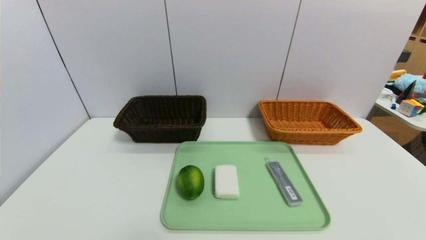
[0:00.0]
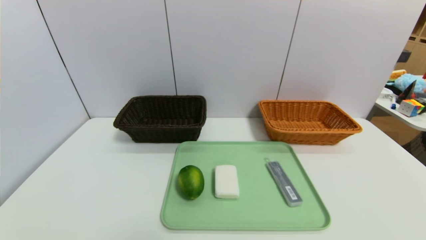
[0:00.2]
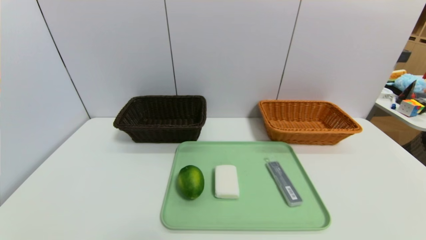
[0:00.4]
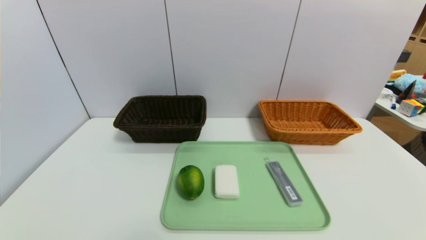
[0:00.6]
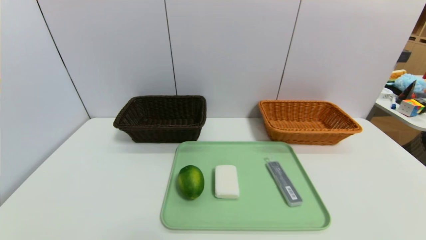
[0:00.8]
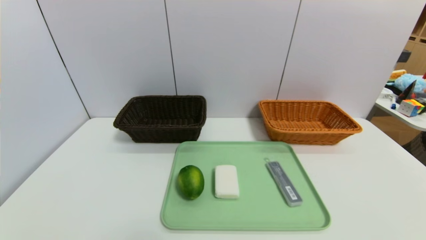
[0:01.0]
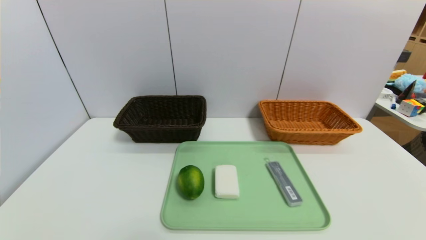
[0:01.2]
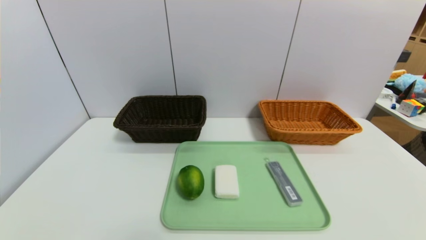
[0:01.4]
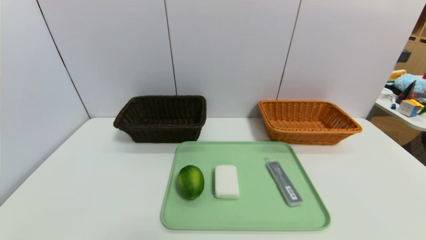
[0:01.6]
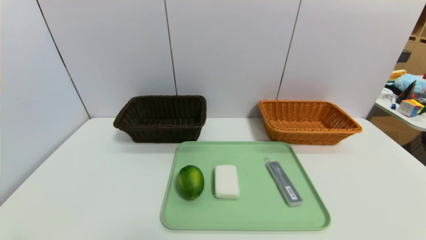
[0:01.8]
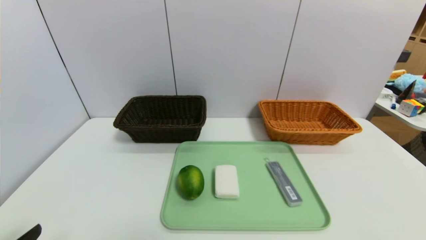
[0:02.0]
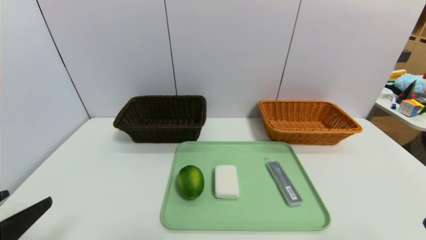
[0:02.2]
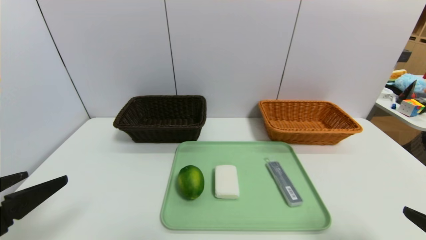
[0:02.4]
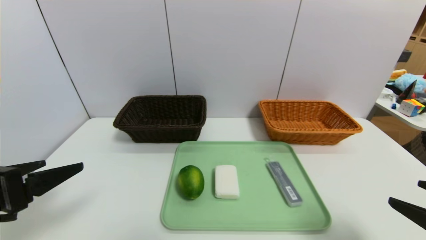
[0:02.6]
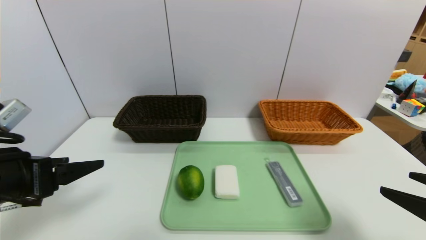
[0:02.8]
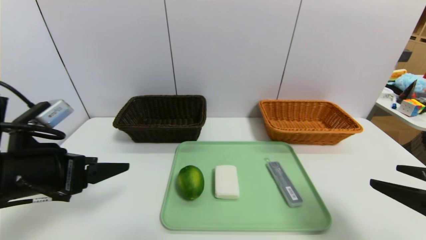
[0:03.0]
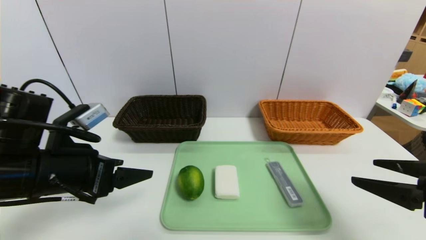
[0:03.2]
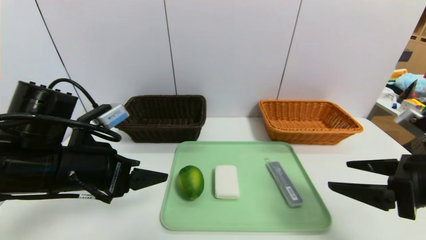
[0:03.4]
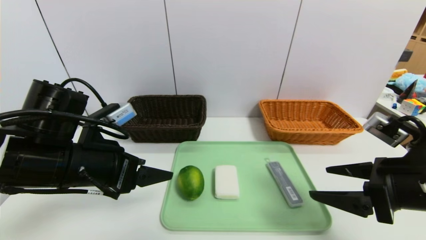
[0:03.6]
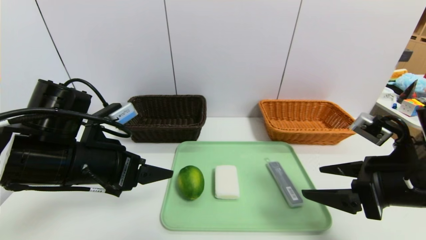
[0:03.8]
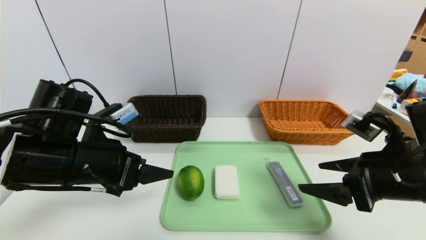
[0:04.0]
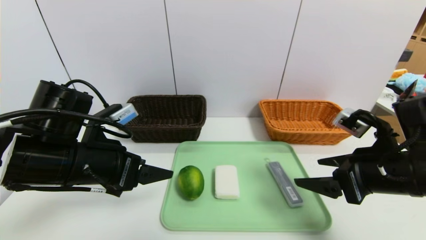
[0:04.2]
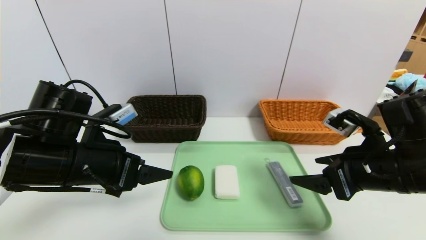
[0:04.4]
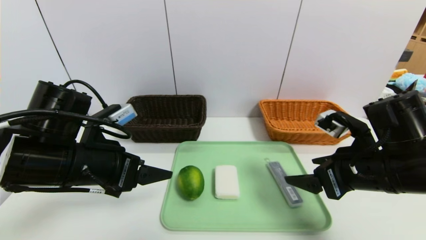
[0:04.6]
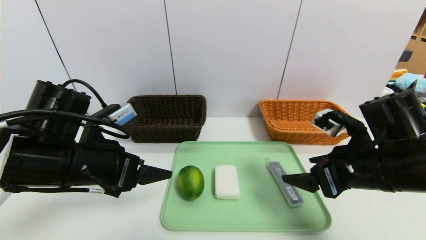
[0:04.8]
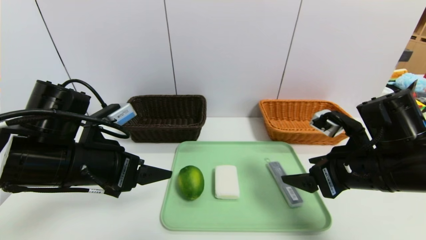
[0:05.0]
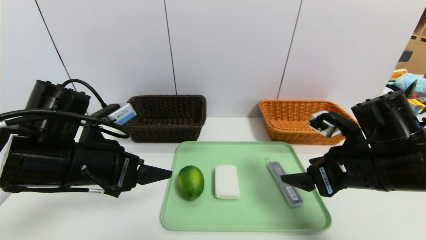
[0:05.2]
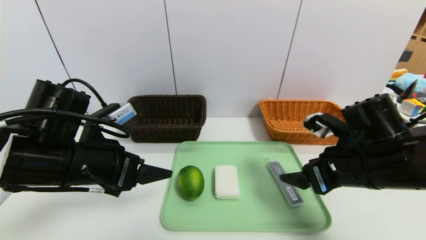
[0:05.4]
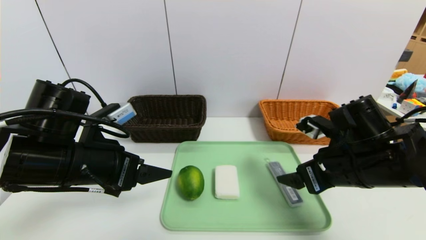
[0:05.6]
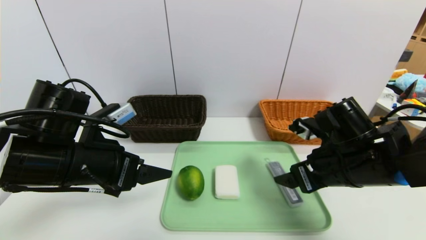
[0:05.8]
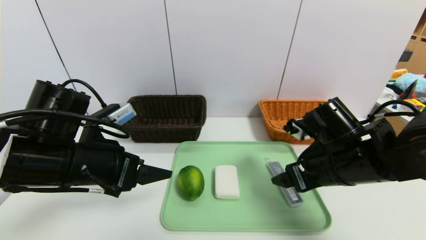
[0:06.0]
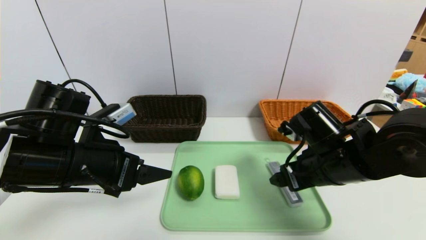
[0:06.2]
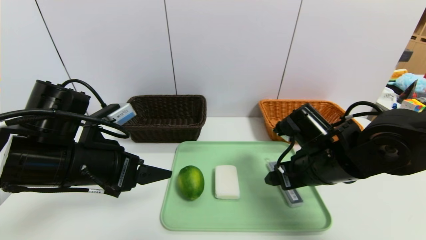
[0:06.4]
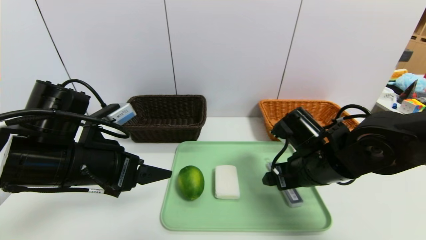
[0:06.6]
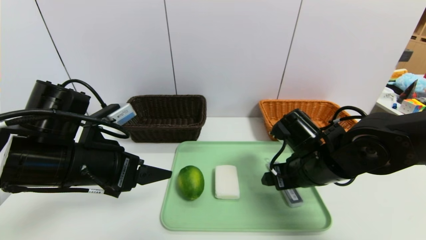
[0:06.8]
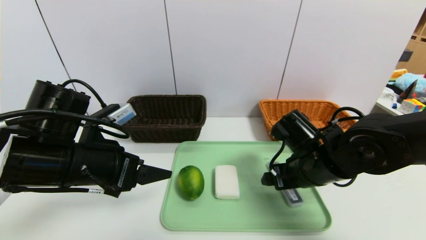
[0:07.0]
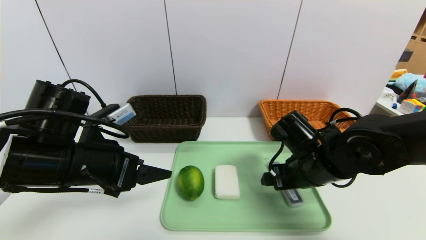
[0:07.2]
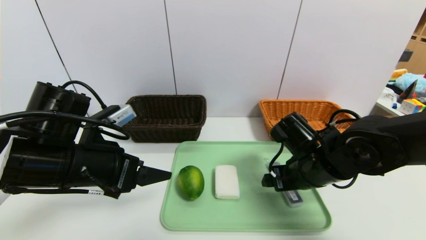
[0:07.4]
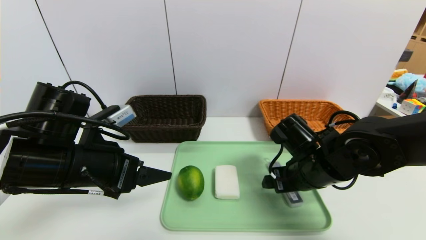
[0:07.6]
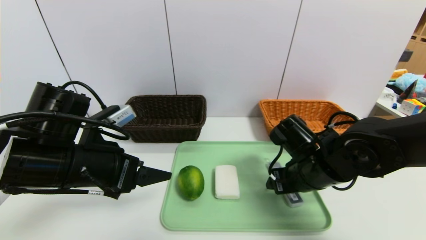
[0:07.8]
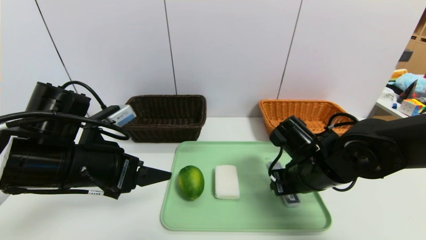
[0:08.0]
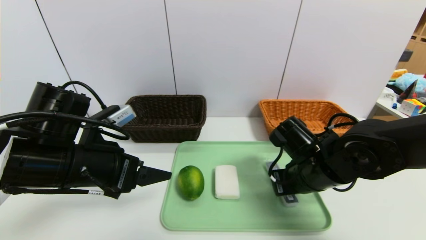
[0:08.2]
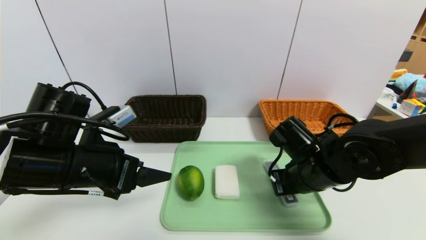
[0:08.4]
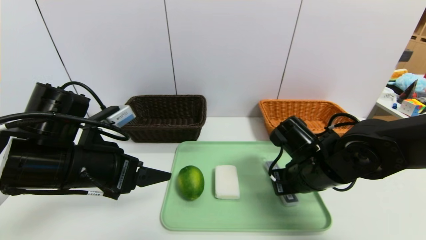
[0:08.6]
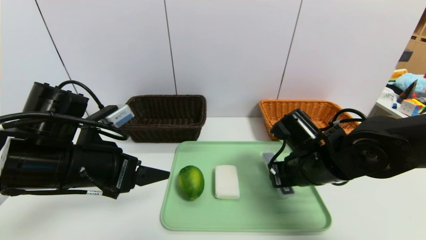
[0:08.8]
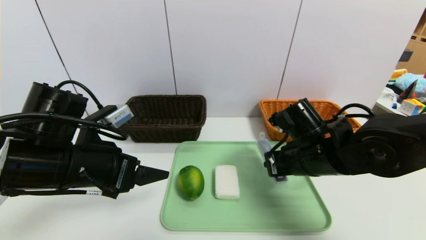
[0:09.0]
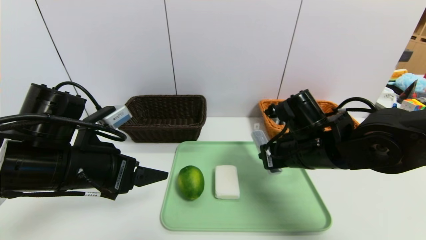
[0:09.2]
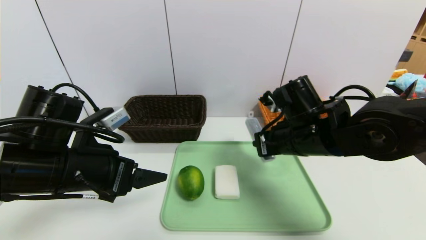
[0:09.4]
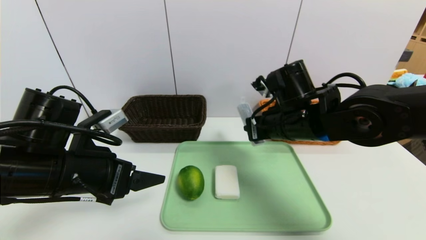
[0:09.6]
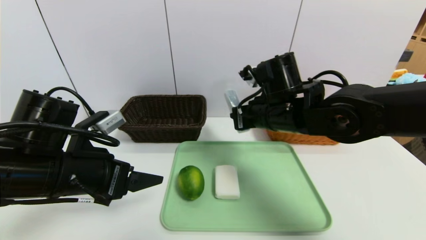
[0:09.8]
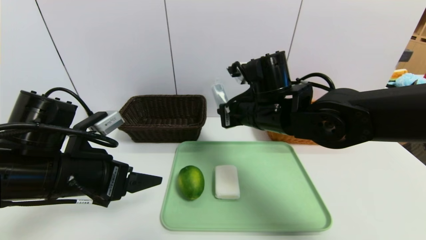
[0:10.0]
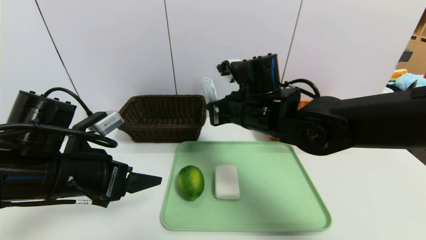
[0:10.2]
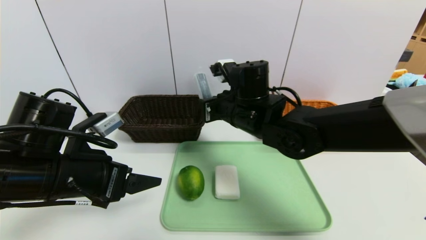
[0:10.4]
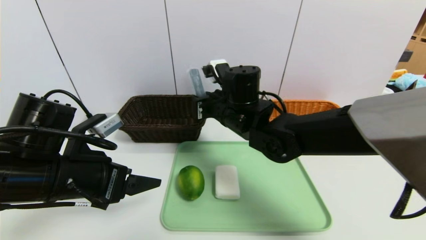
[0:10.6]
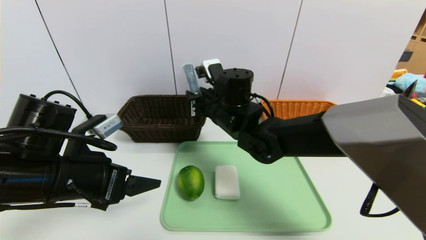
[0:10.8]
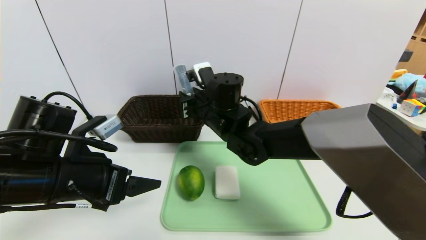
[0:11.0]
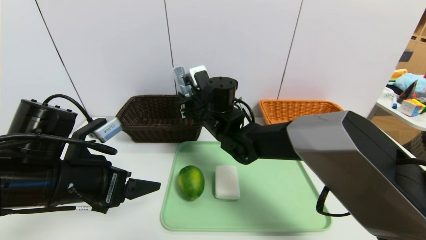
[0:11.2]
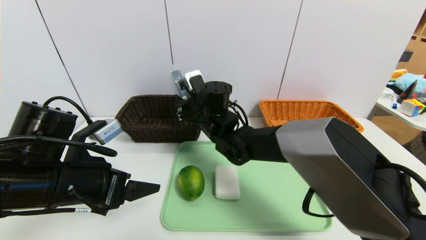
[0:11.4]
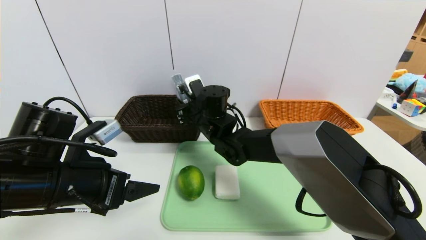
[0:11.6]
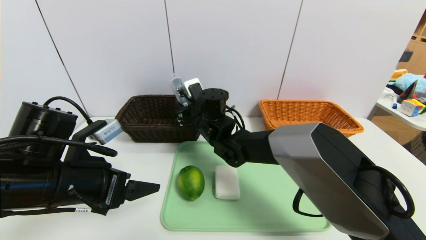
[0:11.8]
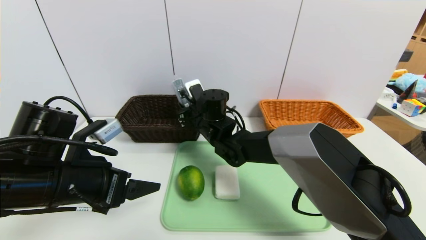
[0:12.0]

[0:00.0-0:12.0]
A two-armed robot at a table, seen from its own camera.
Task of the whole recording: place the food in the right basket with the right gripper, and place the non food items in the left basket with the left gripper.
0:01.6 to 0:03.0: The two grippers go roughly 20 cm forward and upward.
0:03.0 to 0:04.4: The right gripper shifts approximately 10 cm forward and to the left. Meanwhile the left gripper travels to the right by some 5 cm.
0:04.4 to 0:06.0: The right gripper changes place by about 5 cm.
0:06.0 to 0:07.6: The grippers move only a little.
0:07.6 to 0:09.0: The right gripper closes its fingers.
0:09.0 to 0:10.4: The right gripper goes about 15 cm to the left, forward and upward.
0:10.4 to 0:12.0: The right gripper heads to the left, forward and downward, covering about 10 cm.

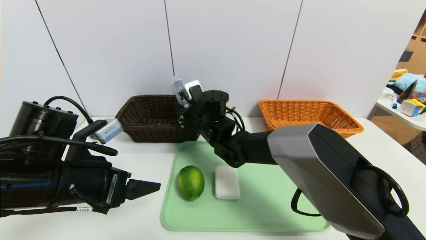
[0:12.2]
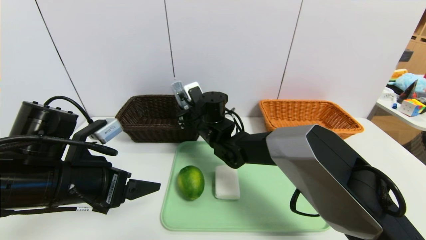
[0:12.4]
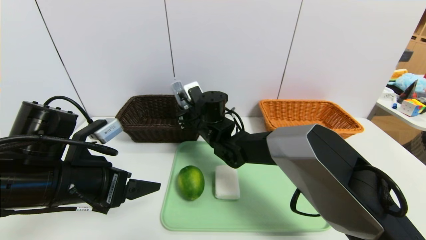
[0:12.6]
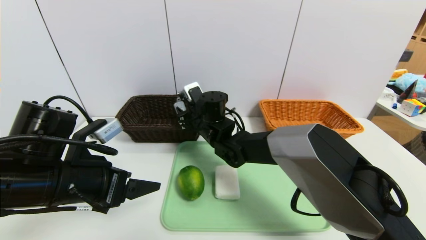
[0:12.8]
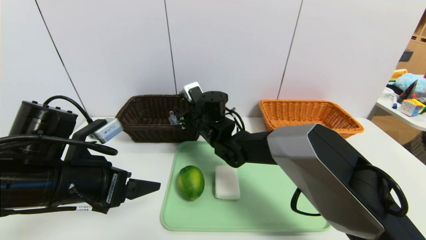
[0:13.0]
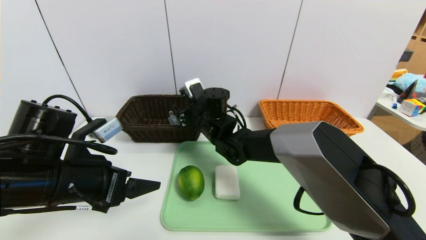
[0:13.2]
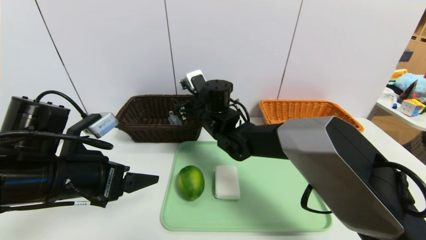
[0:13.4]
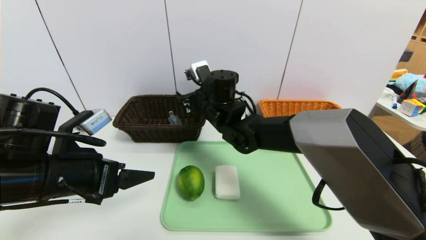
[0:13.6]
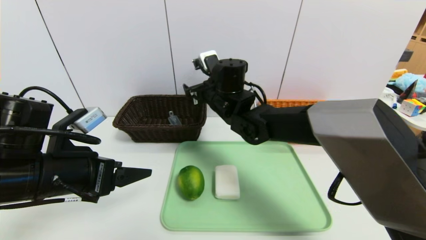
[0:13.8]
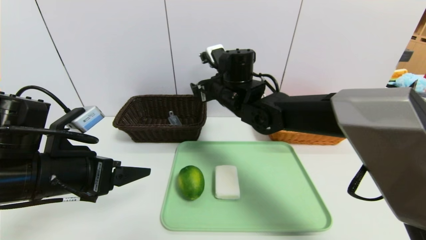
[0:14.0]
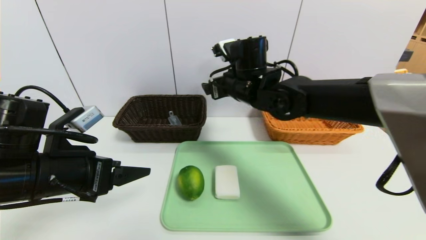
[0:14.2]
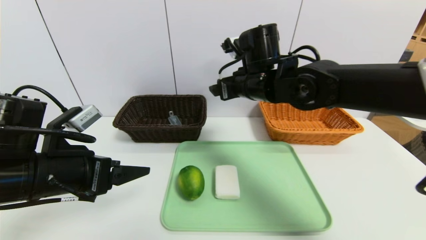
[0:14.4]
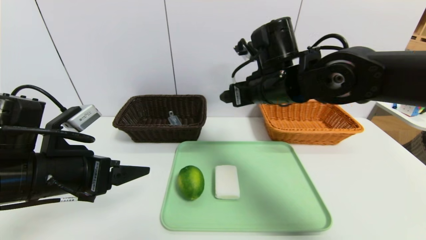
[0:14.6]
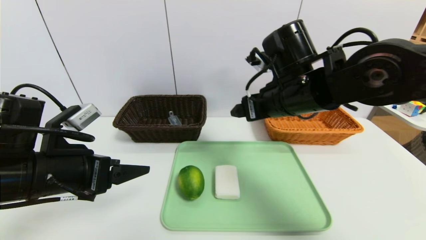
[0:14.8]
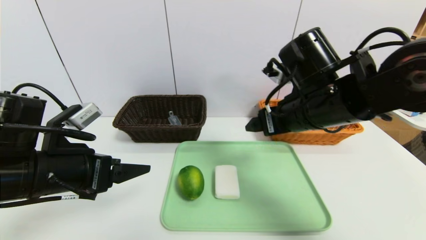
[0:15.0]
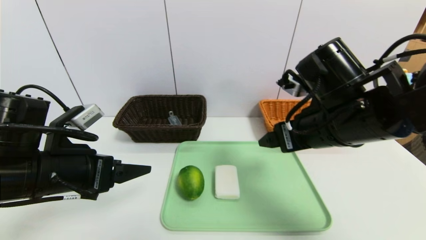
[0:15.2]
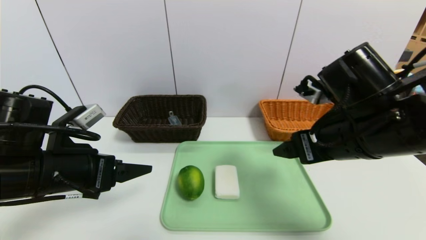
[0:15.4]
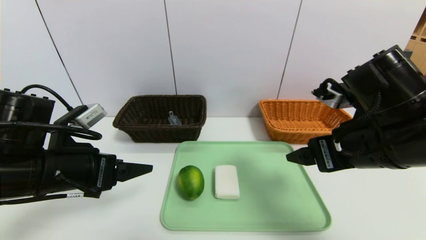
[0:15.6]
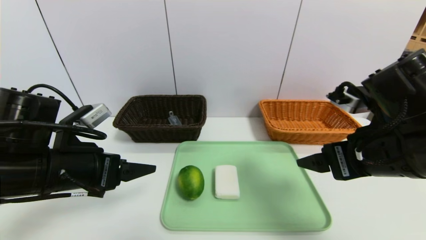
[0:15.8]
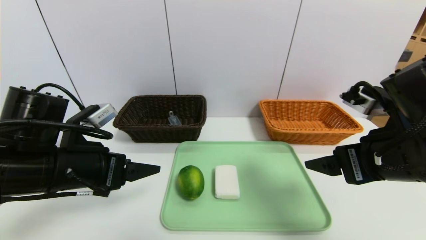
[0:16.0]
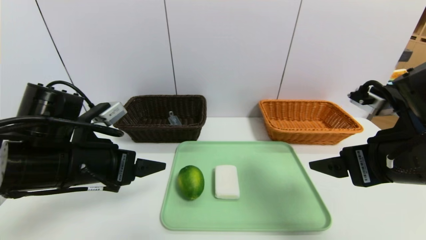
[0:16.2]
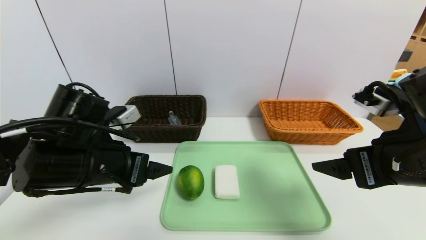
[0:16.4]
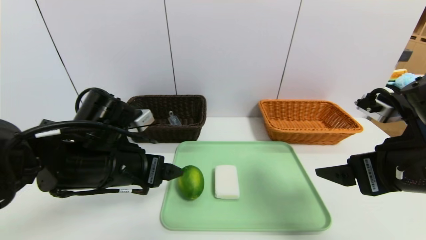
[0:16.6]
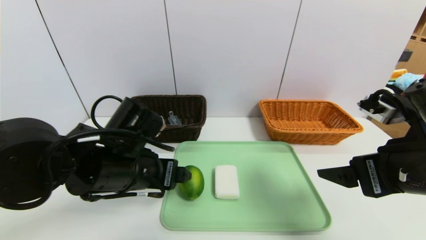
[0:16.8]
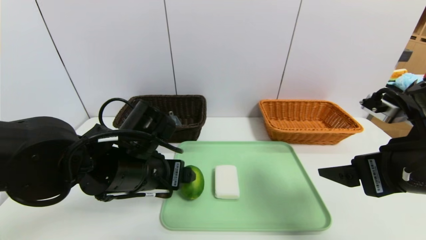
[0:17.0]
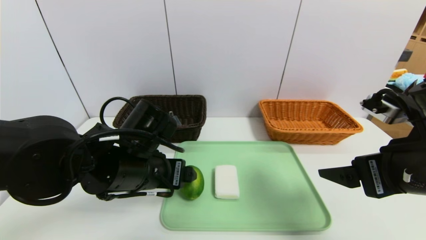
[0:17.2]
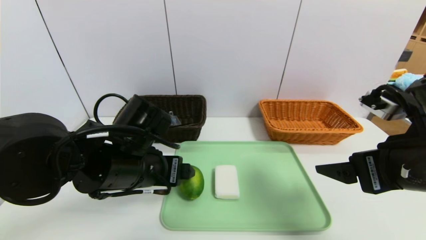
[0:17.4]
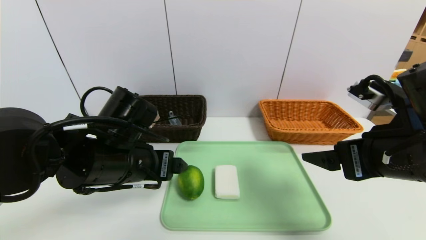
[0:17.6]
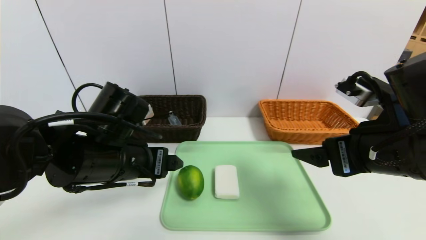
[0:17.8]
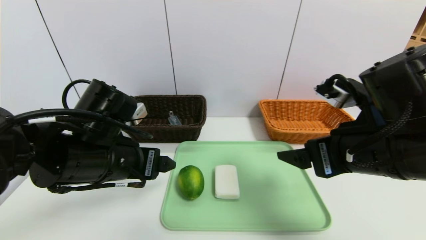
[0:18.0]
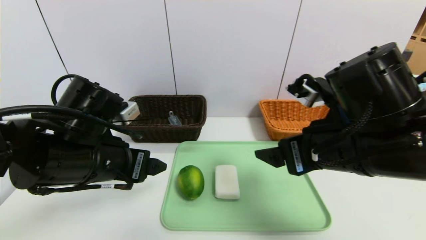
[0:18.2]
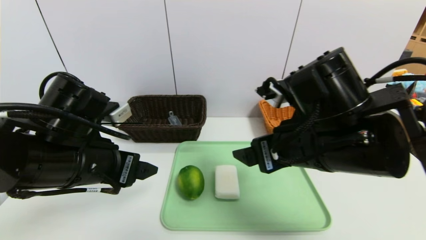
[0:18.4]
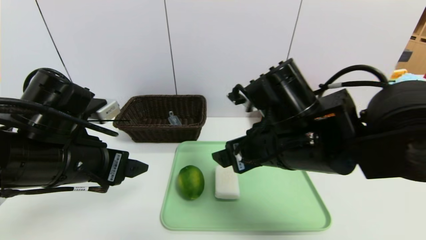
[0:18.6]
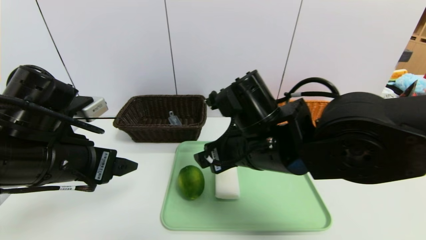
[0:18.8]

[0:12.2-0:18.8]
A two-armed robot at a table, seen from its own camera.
Task of the whole recording: place the food in the right basket with the right gripper, and place the non food items in the left basket with the left gripper.
0:12.2 to 0:13.8: The right gripper heads upward, covering some 5 cm, and opens up.
0:13.8 to 0:15.4: The right gripper is displaced backward and to the right by about 25 cm.
0:15.4 to 0:17.2: The left gripper travels to the right by some 10 cm. The right gripper travels backward and to the right by roughly 10 cm.
0:17.2 to 0:18.8: The left gripper travels to the left by roughly 10 cm; the right gripper shifts approximately 20 cm to the left and forward.
